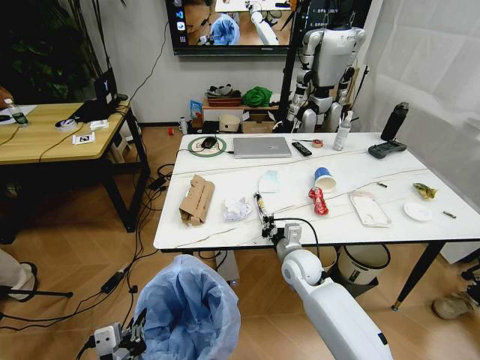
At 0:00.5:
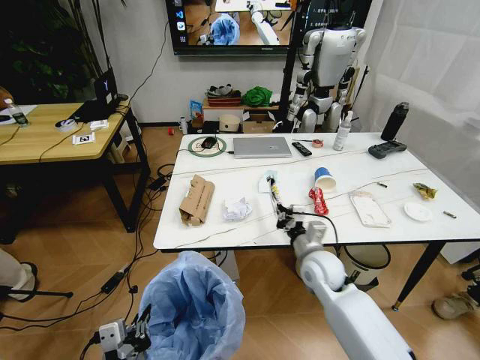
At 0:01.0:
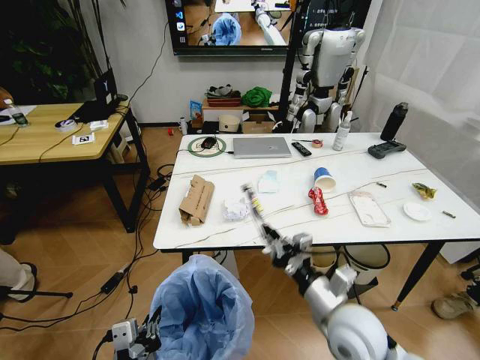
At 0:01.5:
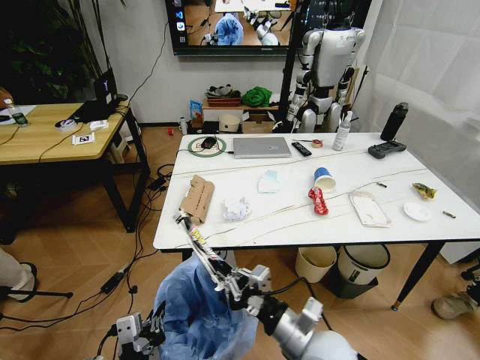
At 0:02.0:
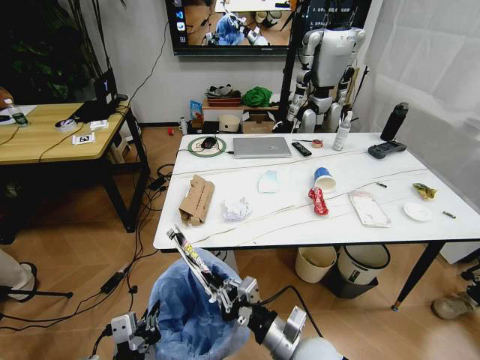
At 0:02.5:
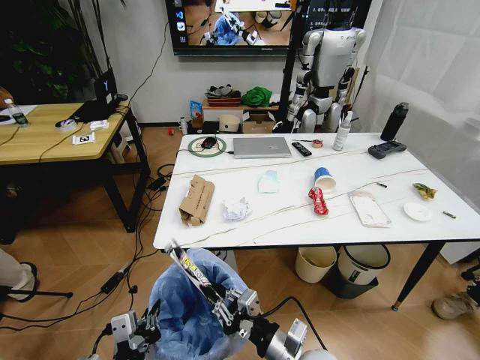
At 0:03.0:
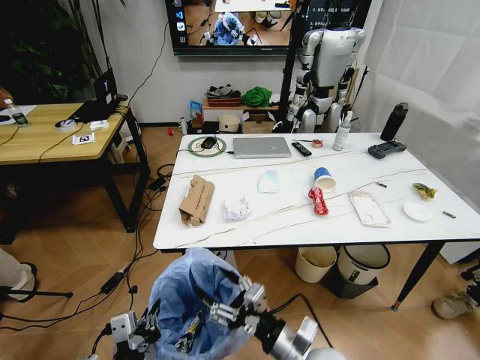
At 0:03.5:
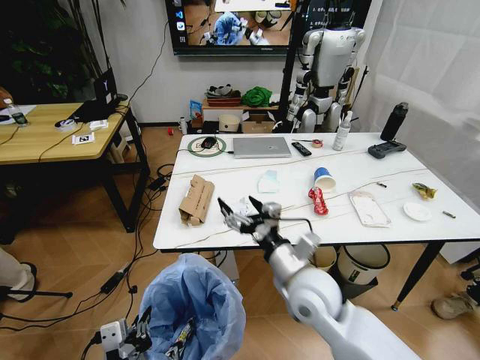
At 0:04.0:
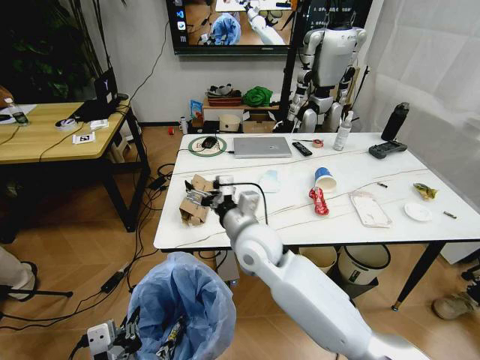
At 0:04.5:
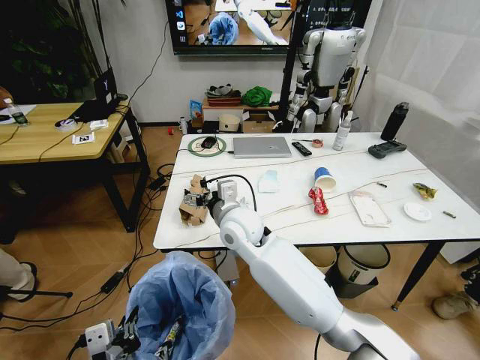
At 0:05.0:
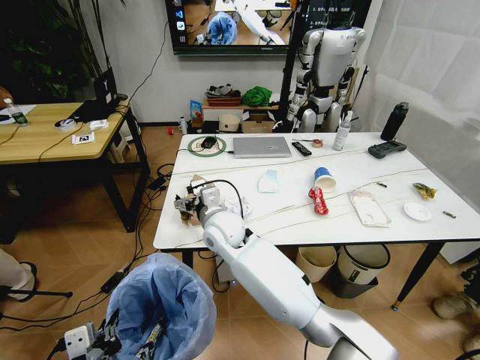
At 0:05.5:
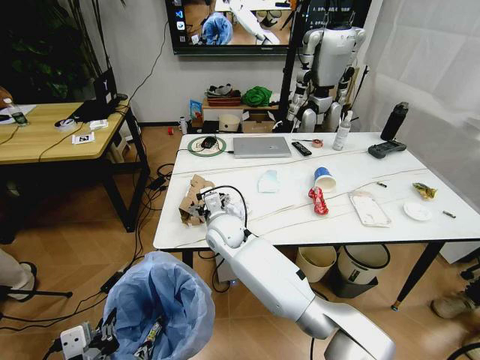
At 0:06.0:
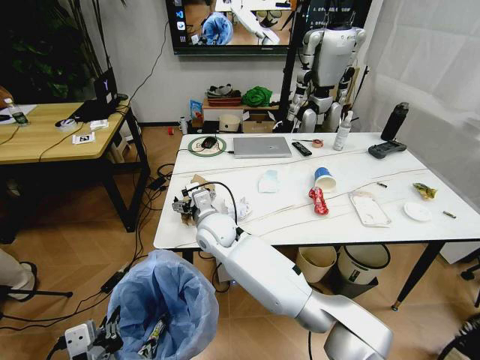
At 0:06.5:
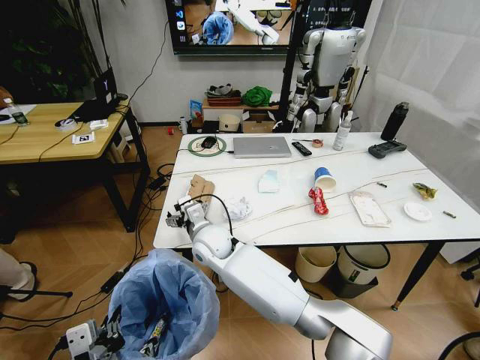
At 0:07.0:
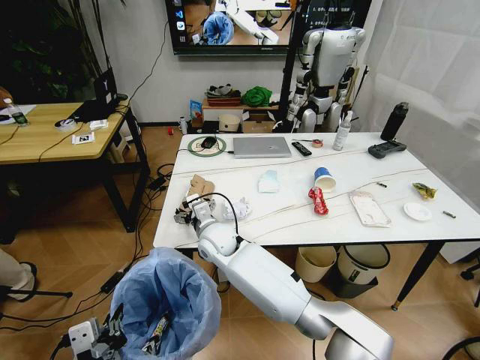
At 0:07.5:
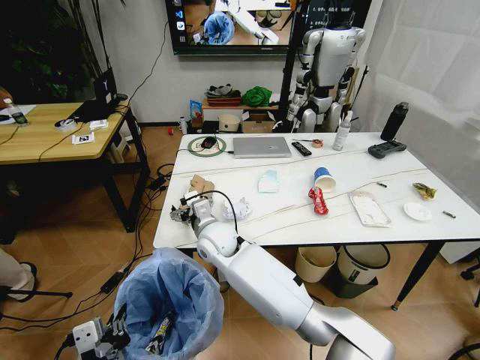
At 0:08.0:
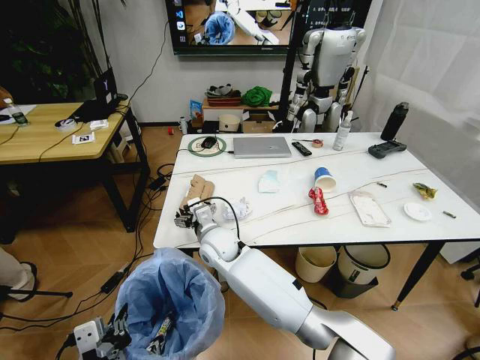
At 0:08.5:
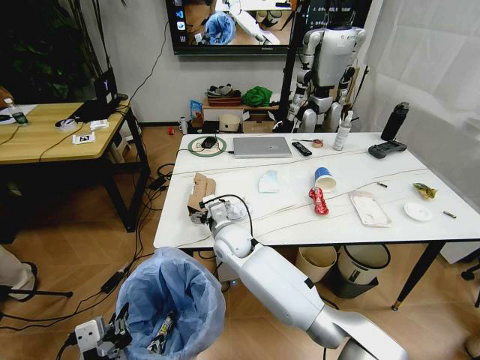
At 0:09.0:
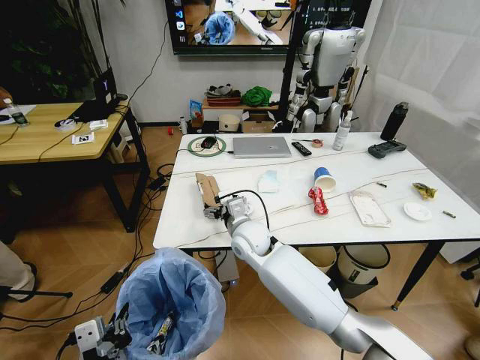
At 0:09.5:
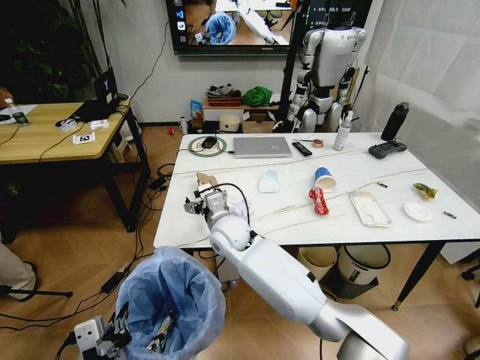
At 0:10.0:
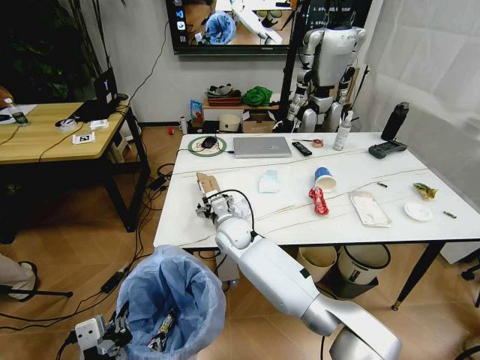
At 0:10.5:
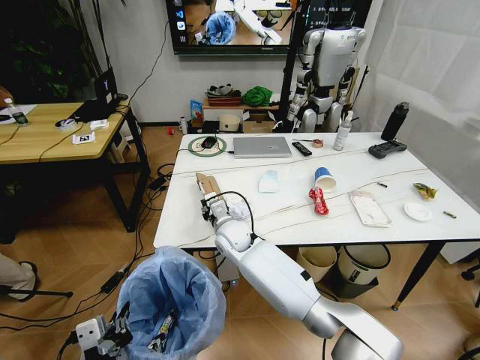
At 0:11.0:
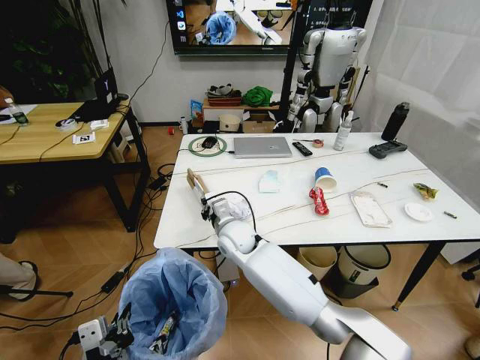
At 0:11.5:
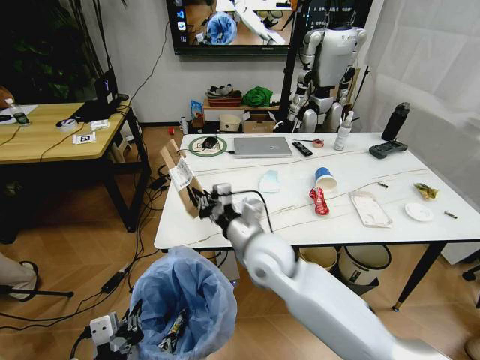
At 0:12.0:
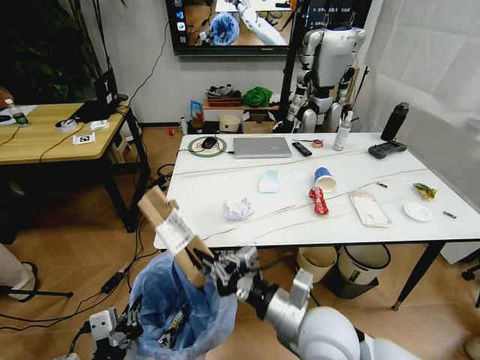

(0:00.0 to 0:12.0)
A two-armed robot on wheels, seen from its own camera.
Task of the whole recording: Pick up the trash bin and place the trash from the table into it.
0:00.0 - 0:02.0: The right gripper travels backward by some 20 cm.
0:02.0 - 0:04.0: The right gripper travels forward, upward and to the left by some 25 cm, and opens.
0:04.0 - 0:06.0: The right gripper goes roughly 15 cm to the left, forward and downward.
0:06.0 - 0:08.0: The grippers make only small movements.
0:08.0 - 0:10.0: The right gripper shifts by about 5 cm.
0:10.0 - 0:12.0: The right gripper moves backward and to the right, about 30 cm, and closes up.

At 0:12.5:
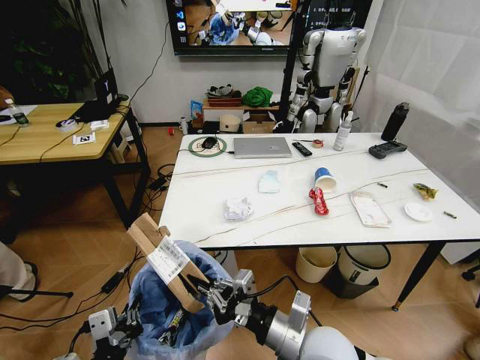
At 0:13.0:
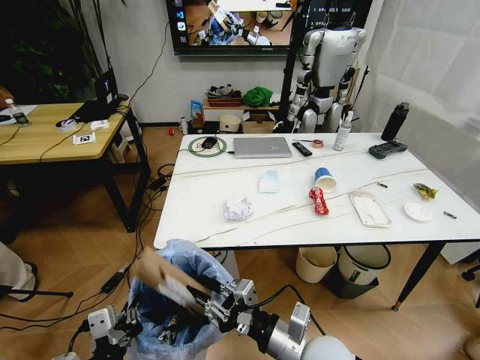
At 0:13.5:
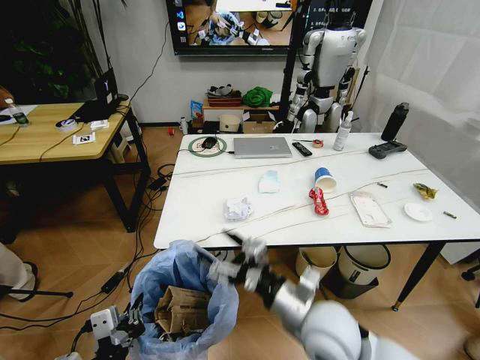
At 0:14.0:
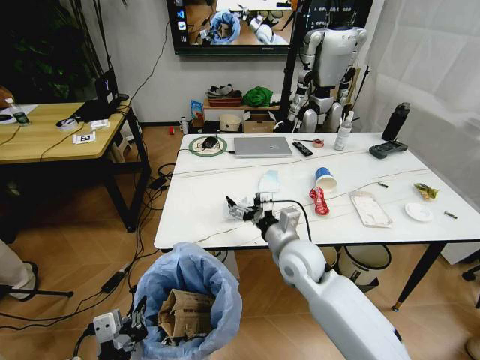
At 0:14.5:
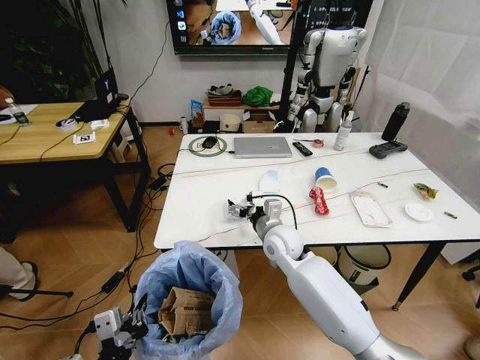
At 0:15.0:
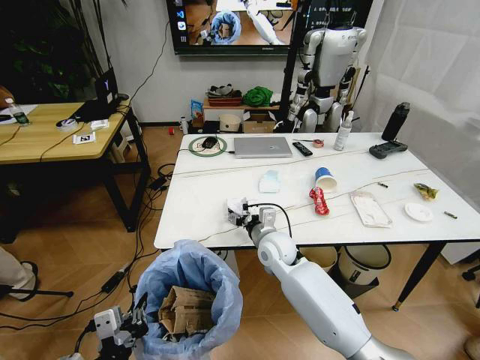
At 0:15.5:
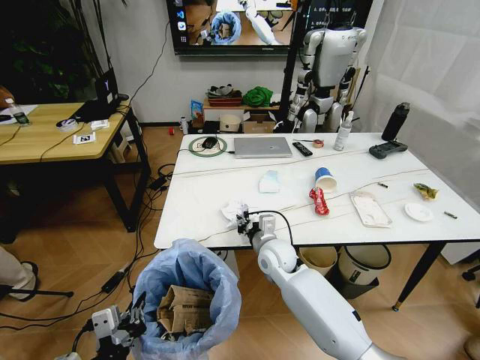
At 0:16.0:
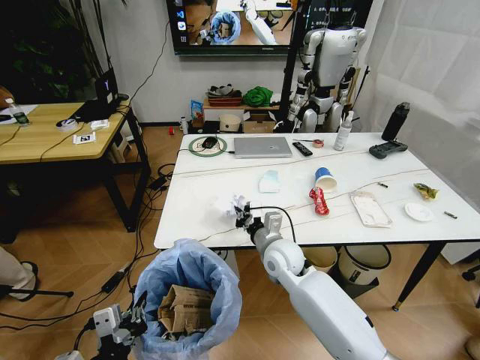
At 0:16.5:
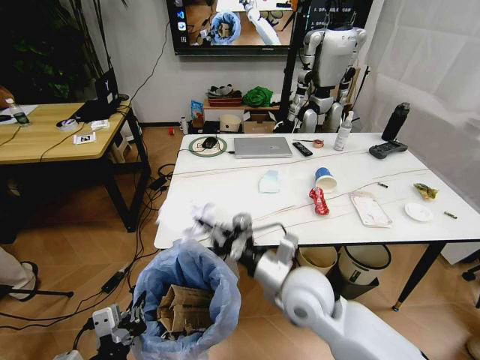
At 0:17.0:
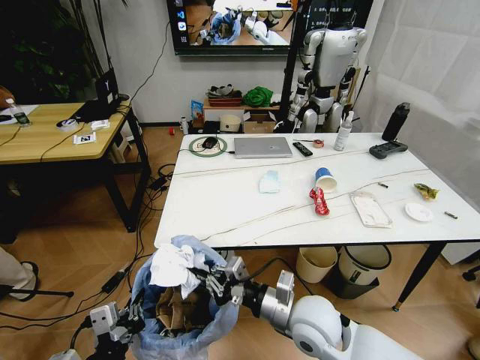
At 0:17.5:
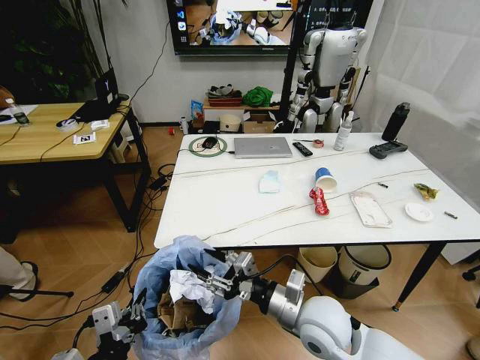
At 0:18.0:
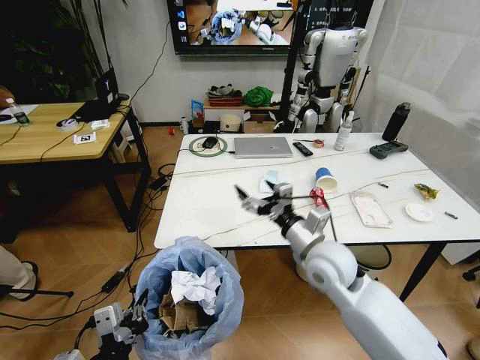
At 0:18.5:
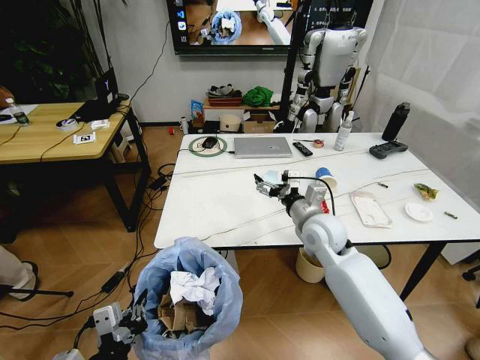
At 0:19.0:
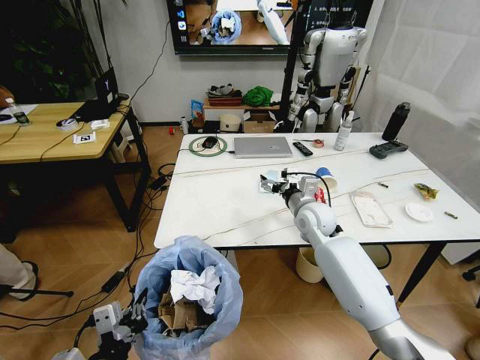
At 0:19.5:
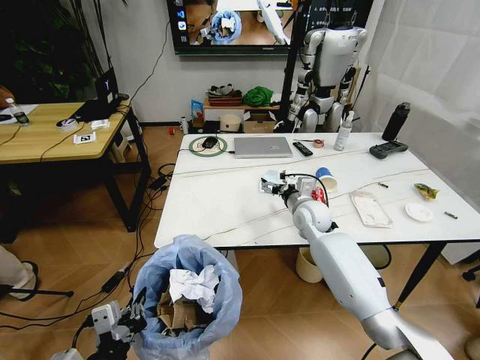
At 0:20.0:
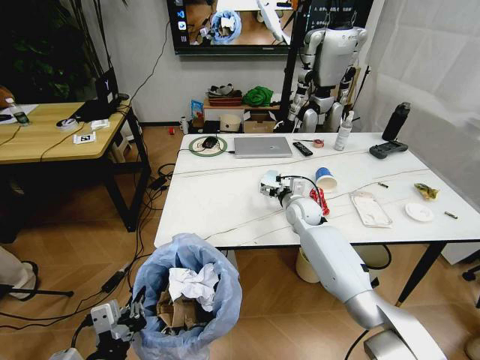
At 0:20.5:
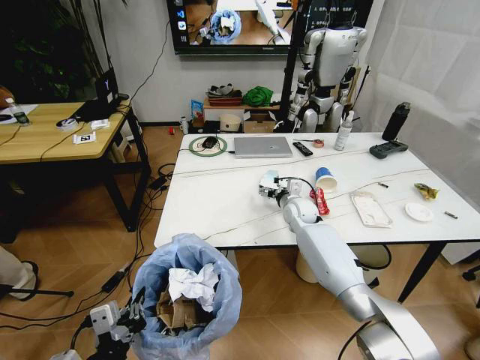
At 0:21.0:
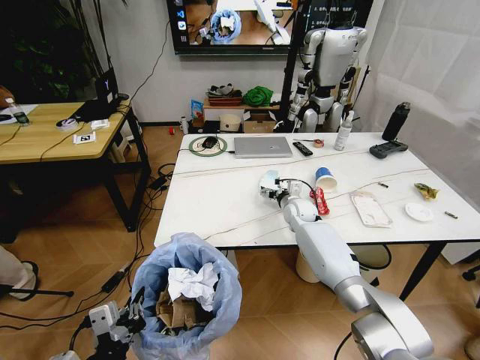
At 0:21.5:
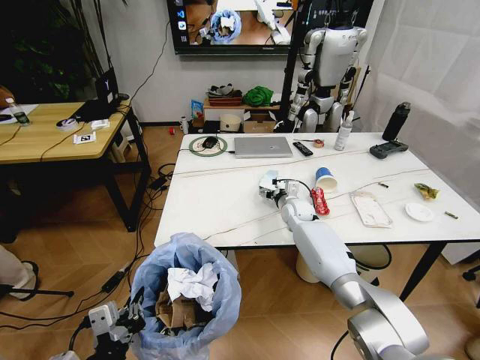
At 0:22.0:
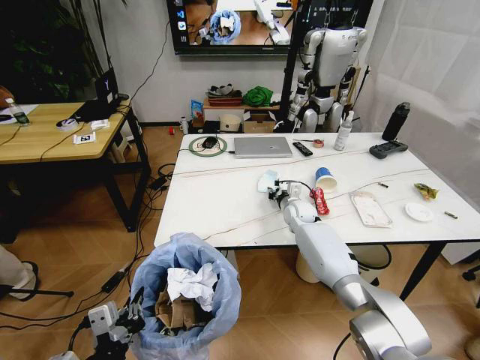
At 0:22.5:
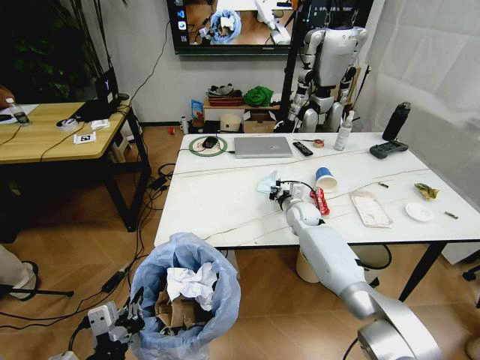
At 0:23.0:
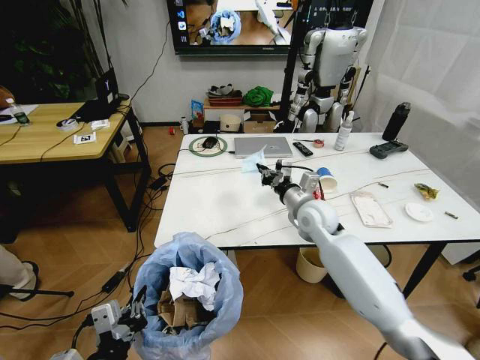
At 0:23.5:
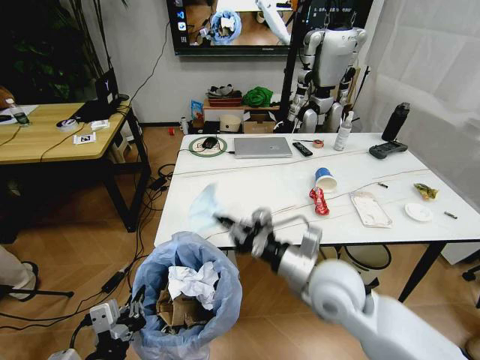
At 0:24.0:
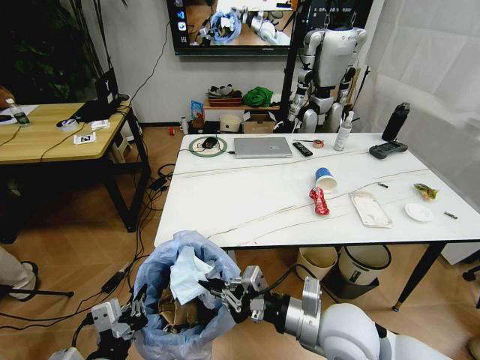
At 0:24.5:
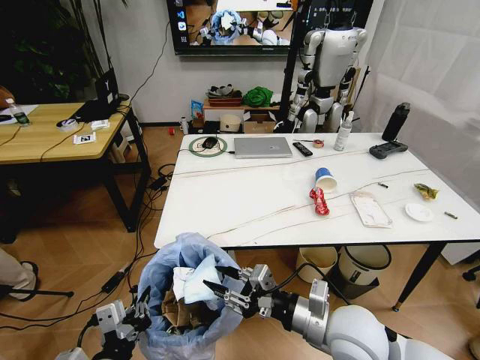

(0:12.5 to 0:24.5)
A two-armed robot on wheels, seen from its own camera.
Task of the whole recording: Pick up the trash bin and place the trash from the table into it.
0:12.5 - 0:14.5: The right gripper is displaced forward by some 25 cm, and opens.
0:14.5 - 0:16.5: The right gripper moves backward, about 15 cm, and closes.
0:16.5 - 0:18.5: The right gripper heads forward and to the right, covering about 15 cm, and opens its fingers.
0:18.5 - 0:20.5: The right gripper shifts some 15 cm forward and downward.
0:20.5 - 0:22.5: The right gripper closes its fingers.
0:22.5 - 0:24.5: The right gripper heads backward, covering roughly 35 cm.

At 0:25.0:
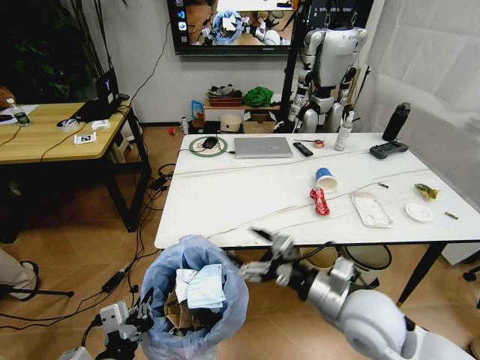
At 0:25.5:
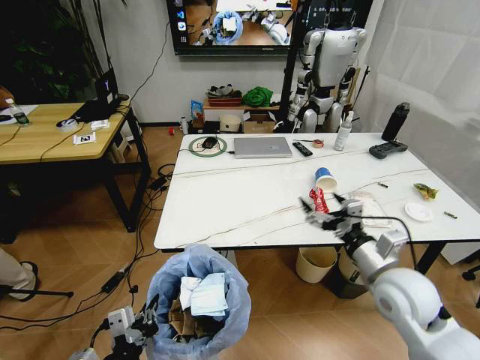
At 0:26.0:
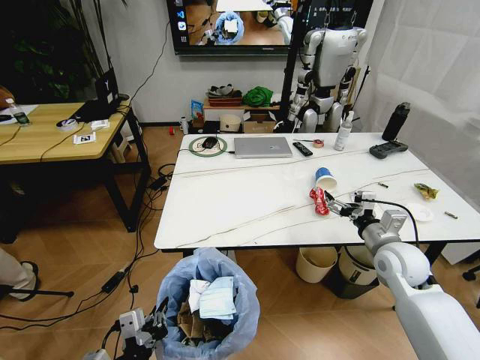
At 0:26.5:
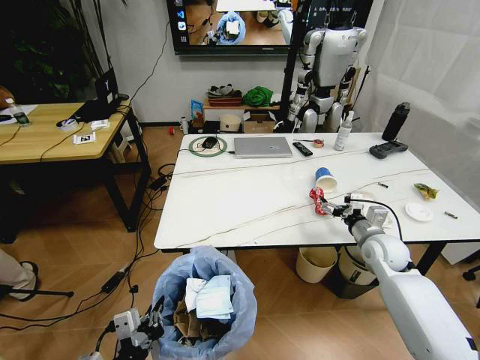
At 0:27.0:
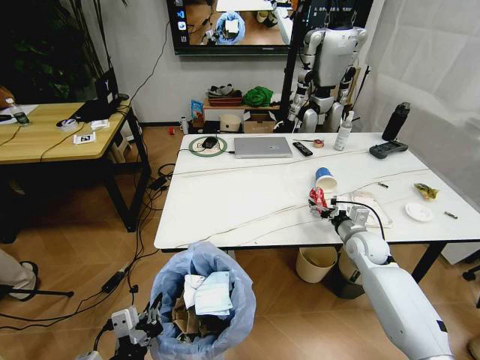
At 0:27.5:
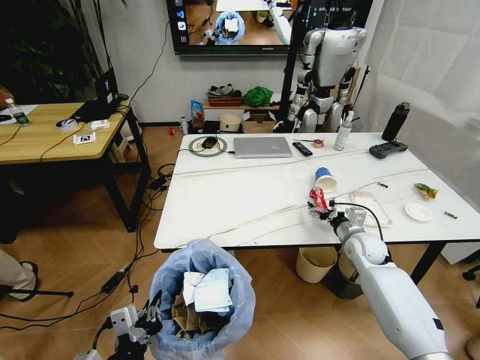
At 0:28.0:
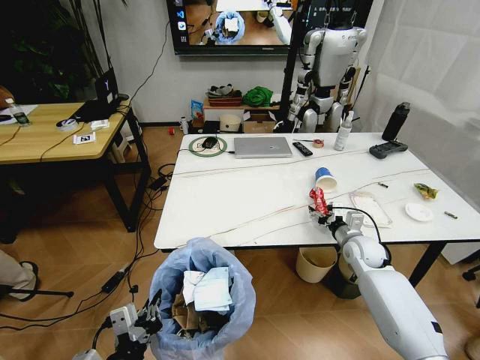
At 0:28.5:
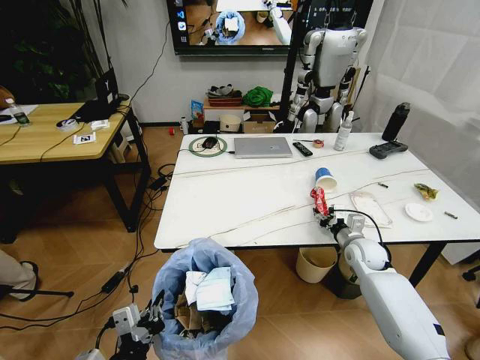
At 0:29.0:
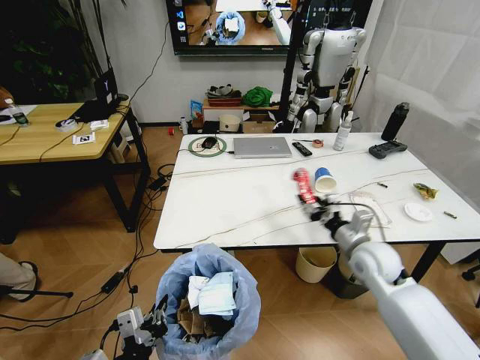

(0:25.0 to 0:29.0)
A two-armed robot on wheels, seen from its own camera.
Task of the whole recording: Pick up the trash bin and place the trash from the table into it.
0:25.0 - 0:27.0: The right gripper heads forward, to the right and downward, covering approximately 25 cm.
0:27.0 - 0:29.0: The right gripper heads backward, upward and to the left, covering about 10 cm, and closes up.
